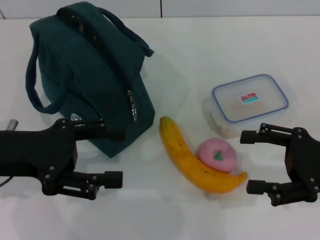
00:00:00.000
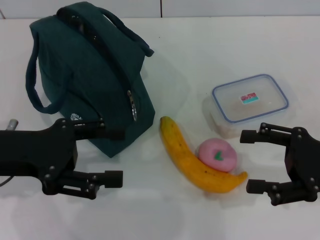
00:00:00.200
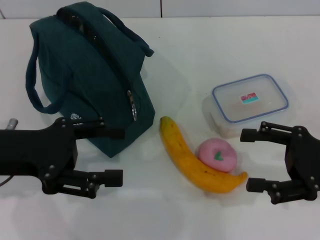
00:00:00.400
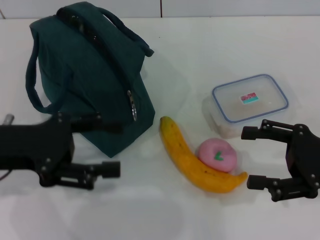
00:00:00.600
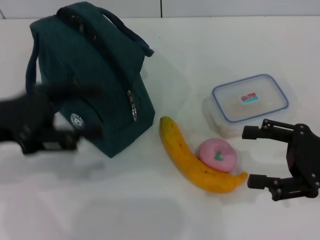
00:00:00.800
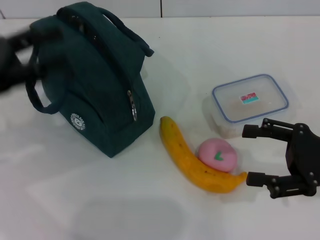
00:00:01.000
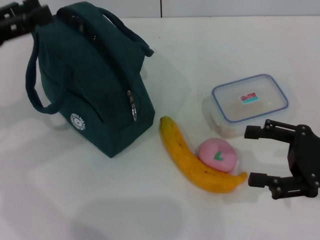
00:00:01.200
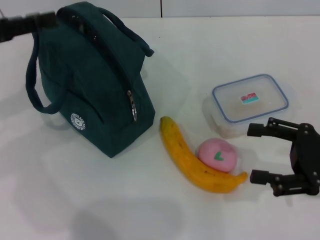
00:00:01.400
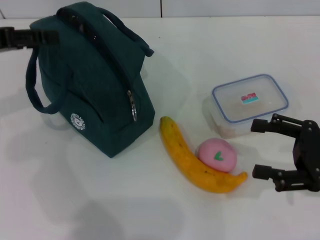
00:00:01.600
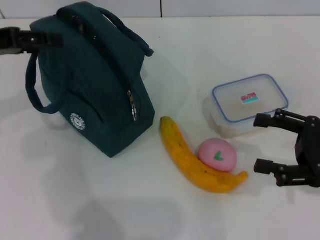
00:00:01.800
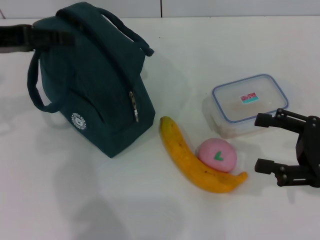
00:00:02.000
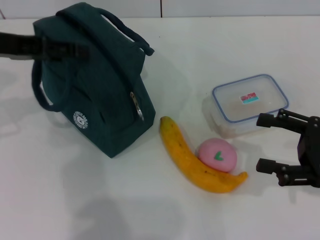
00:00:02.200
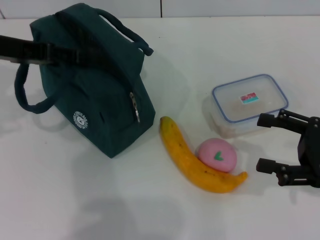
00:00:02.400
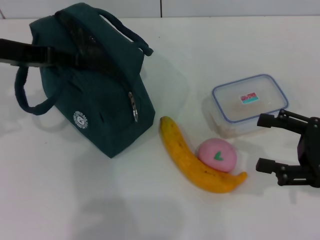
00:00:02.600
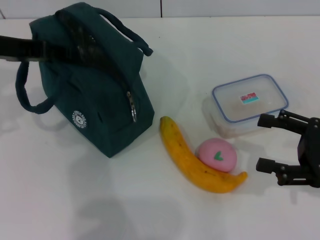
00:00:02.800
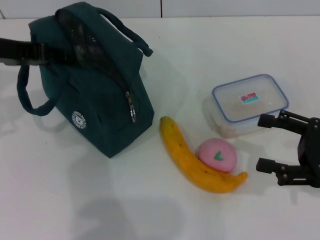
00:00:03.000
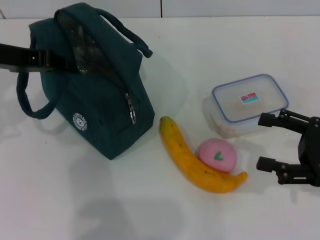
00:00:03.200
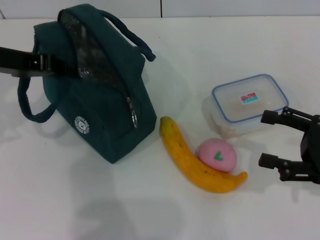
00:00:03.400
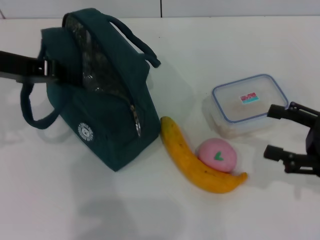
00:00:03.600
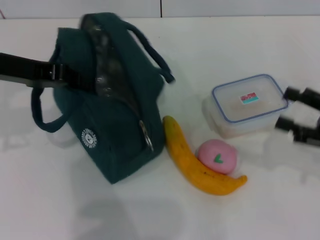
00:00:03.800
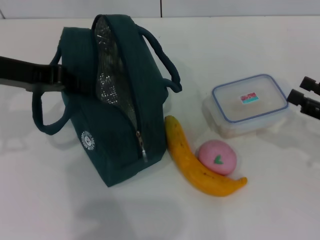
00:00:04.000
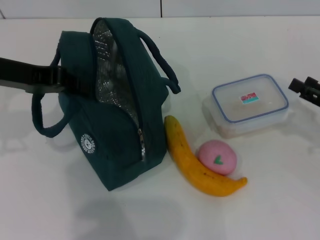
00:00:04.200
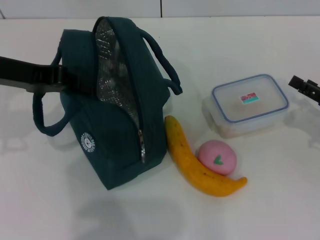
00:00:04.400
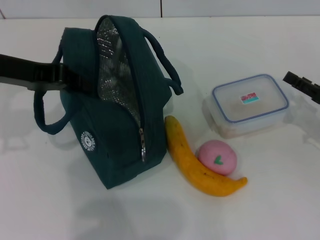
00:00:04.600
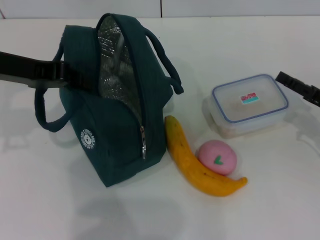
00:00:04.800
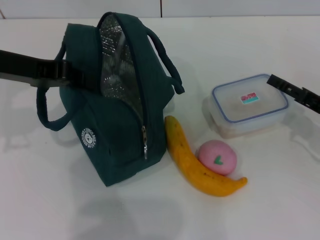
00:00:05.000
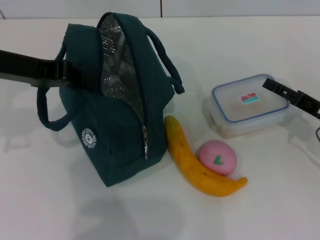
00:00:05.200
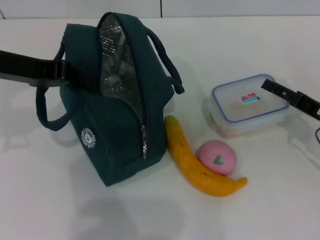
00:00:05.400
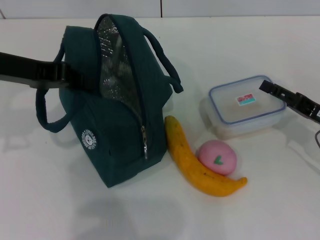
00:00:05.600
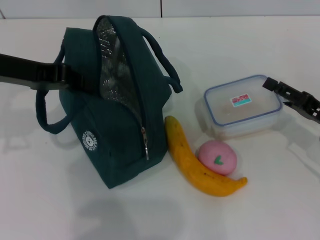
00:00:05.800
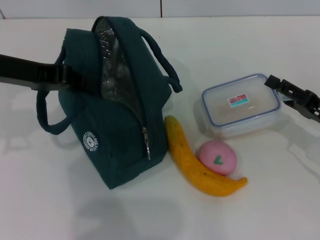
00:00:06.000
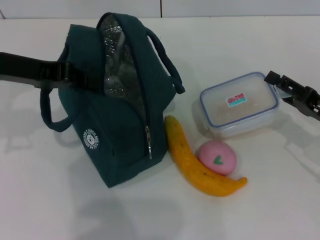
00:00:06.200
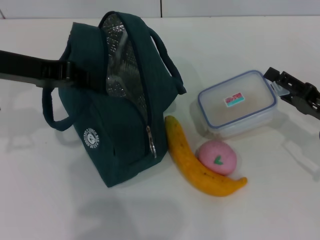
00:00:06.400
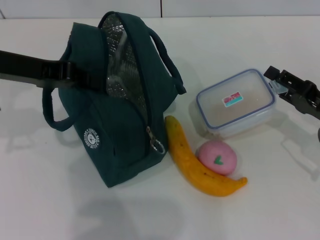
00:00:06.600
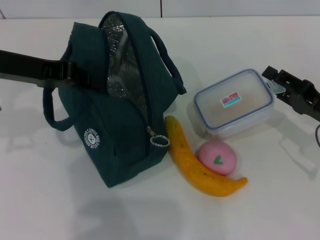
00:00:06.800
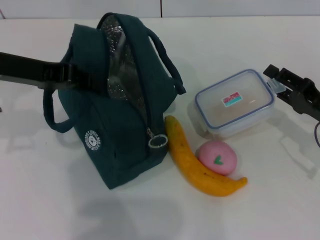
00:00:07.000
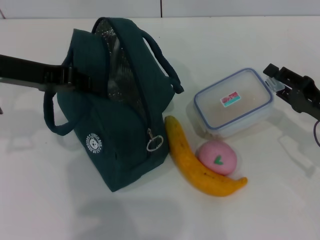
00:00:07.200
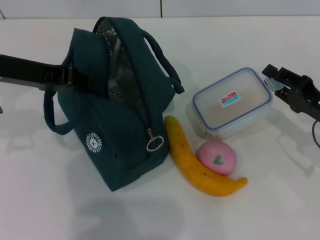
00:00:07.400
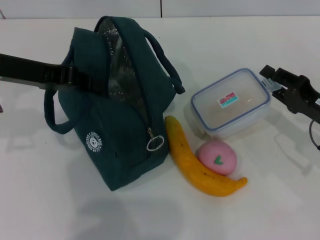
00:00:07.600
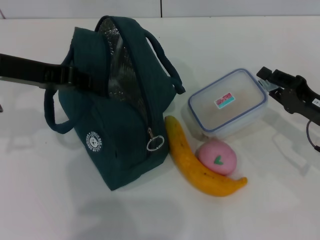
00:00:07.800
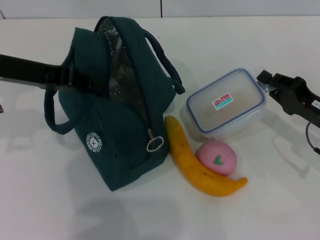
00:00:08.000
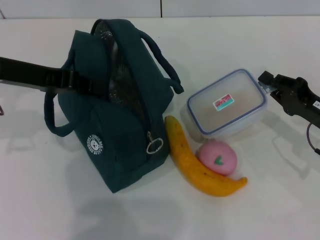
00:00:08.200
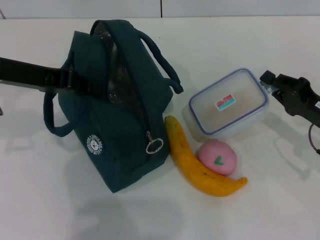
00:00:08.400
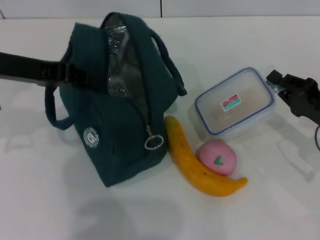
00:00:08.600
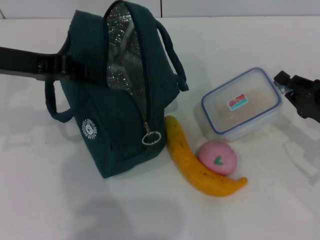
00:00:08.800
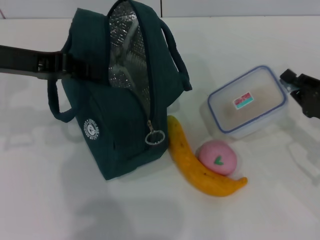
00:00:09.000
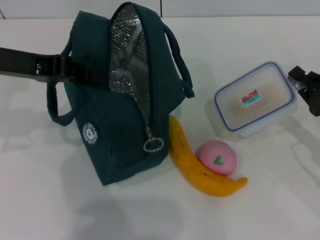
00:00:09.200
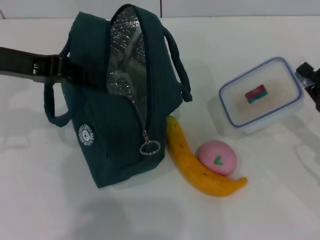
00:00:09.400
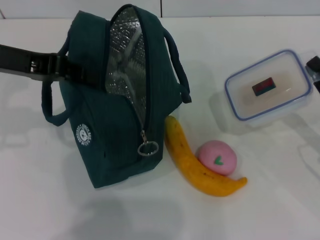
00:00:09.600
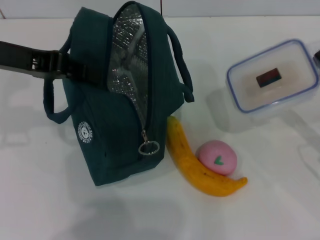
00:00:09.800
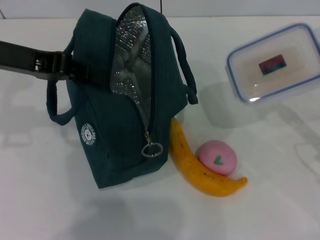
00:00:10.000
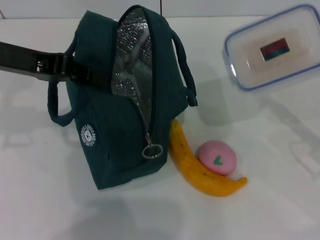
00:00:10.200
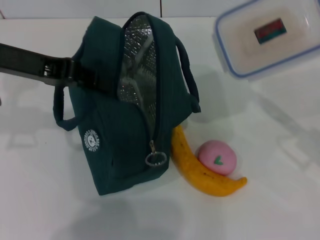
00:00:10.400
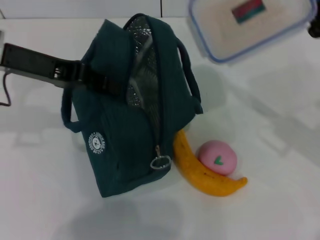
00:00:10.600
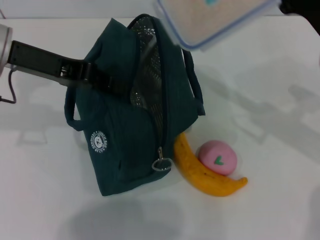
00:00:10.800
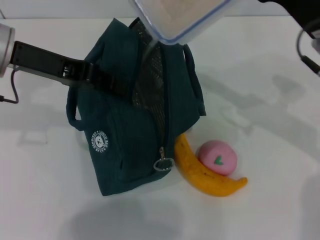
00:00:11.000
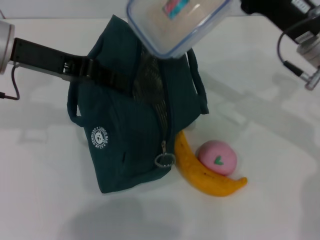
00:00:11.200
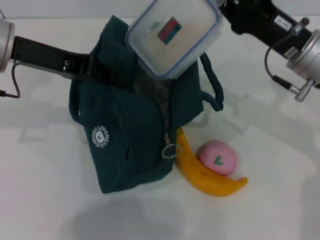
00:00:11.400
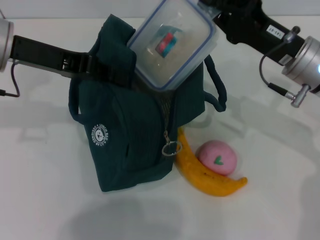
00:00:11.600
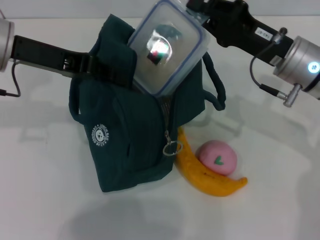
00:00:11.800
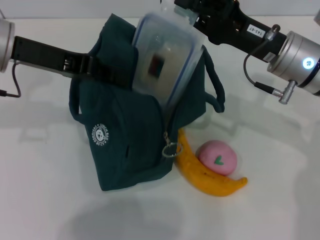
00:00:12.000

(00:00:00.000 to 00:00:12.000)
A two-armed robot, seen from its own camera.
Step, 00:00:00.000 - 00:00:03.800: Hold the lunch bag with your left hand.
Step, 00:00:04.000 - 00:00:08.200: Pick up the lunch box with your right hand.
00:00:00.000 - 00:00:01.600: The left gripper goes some 10 cm forward, upward and to the left.
00:00:01.600 - 00:00:03.000: There are only small adjustments of the grippers.
00:00:03.000 - 00:00:04.400: The left gripper closes its fingers, while the right gripper shifts by some 5 cm.
00:00:04.400 - 00:00:06.000: The grippers stay close to where they were, moving slightly.
00:00:06.000 - 00:00:07.600: The right gripper closes.
00:00:07.600 - 00:00:09.000: The right gripper closes.
00:00:09.000 - 00:00:10.400: The right gripper is displaced upward by roughly 5 cm.
00:00:10.400 - 00:00:12.000: The right gripper is displaced to the left and forward by about 15 cm.

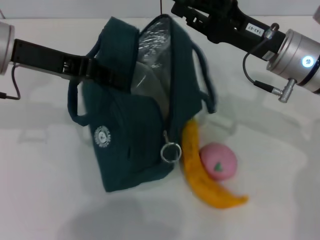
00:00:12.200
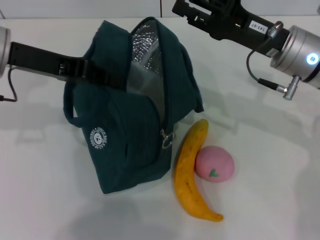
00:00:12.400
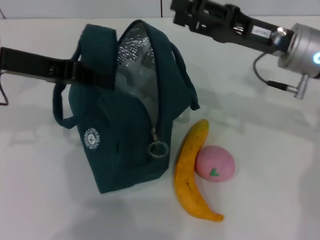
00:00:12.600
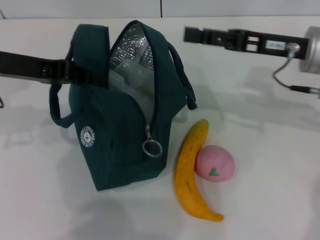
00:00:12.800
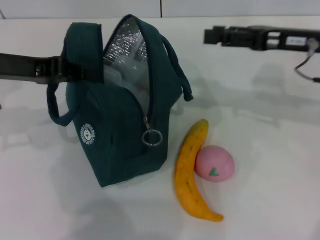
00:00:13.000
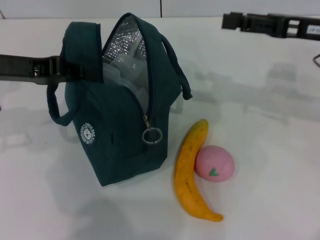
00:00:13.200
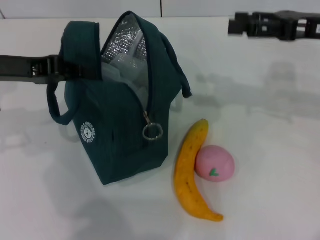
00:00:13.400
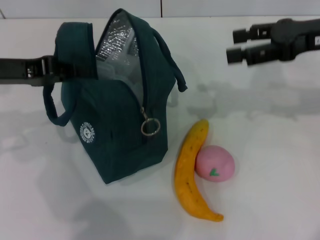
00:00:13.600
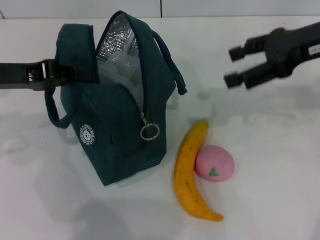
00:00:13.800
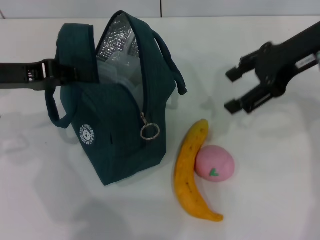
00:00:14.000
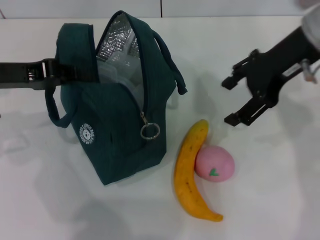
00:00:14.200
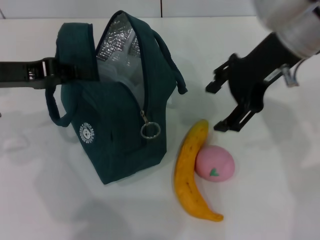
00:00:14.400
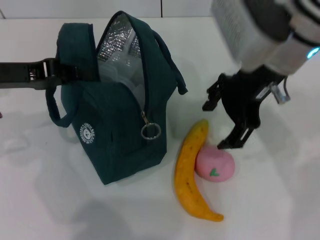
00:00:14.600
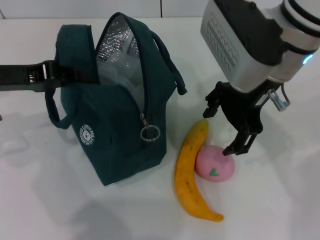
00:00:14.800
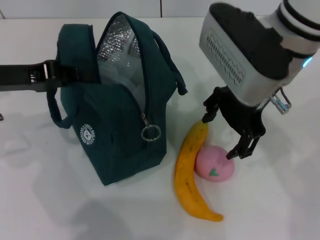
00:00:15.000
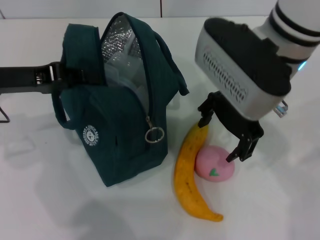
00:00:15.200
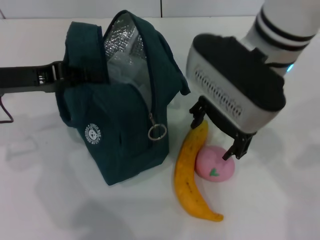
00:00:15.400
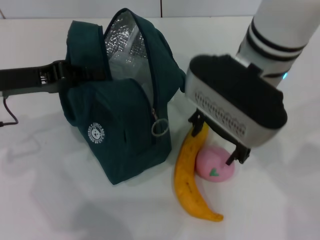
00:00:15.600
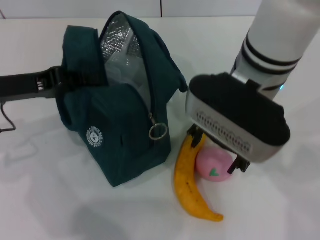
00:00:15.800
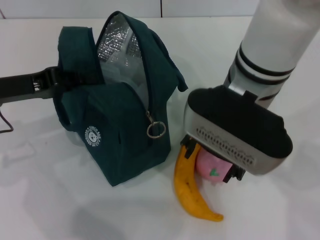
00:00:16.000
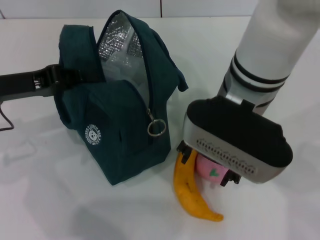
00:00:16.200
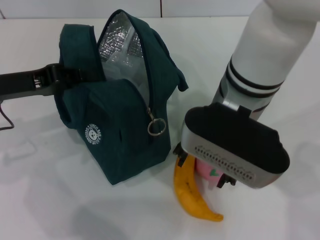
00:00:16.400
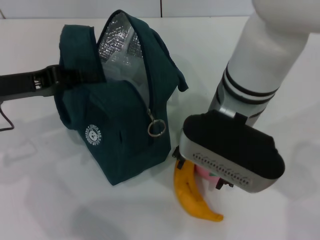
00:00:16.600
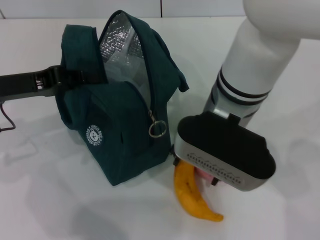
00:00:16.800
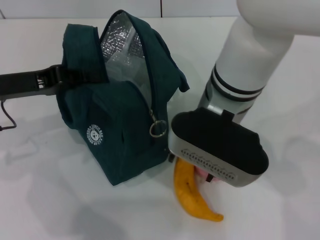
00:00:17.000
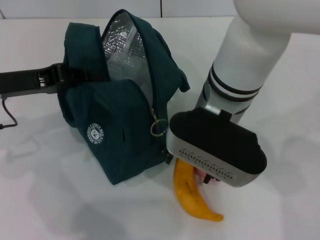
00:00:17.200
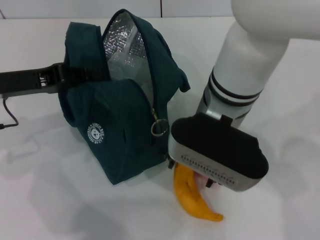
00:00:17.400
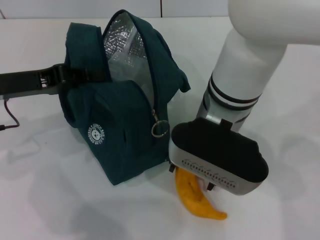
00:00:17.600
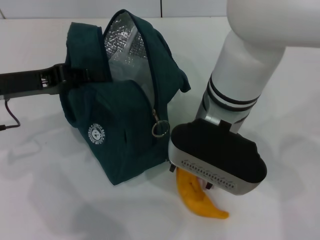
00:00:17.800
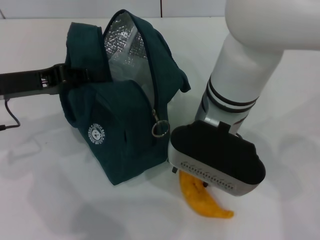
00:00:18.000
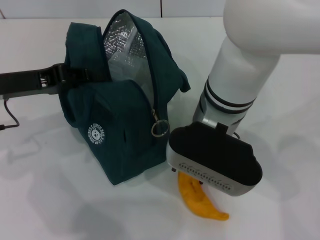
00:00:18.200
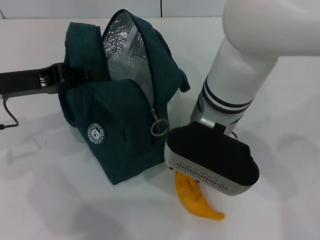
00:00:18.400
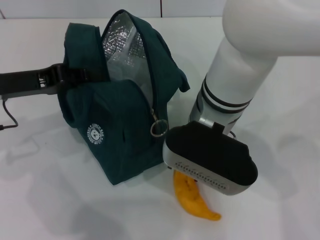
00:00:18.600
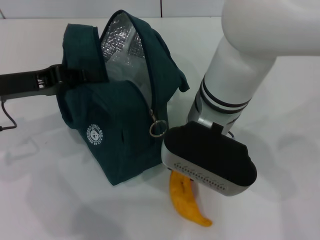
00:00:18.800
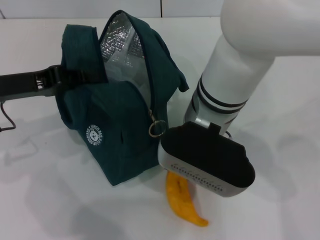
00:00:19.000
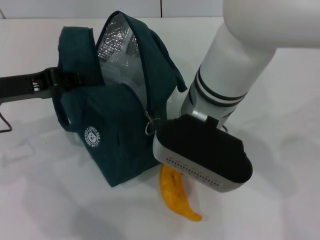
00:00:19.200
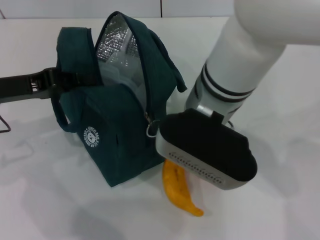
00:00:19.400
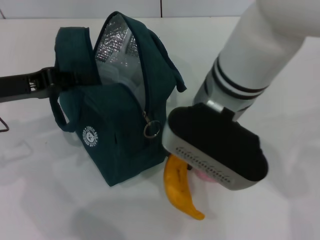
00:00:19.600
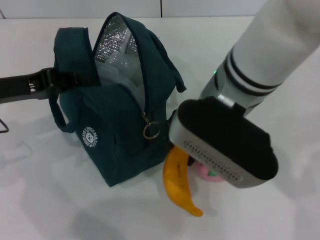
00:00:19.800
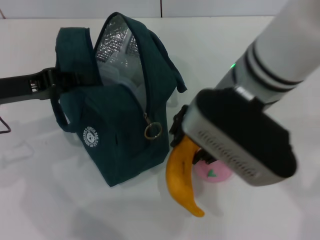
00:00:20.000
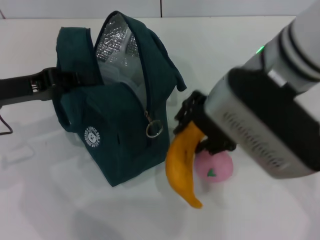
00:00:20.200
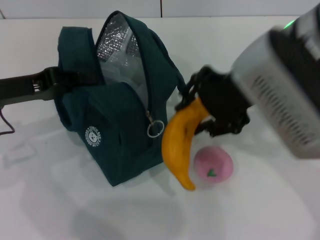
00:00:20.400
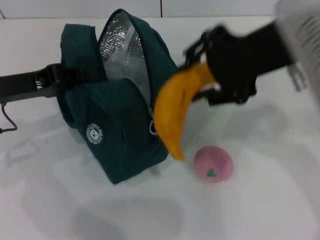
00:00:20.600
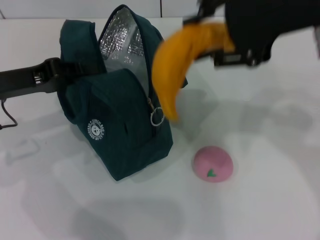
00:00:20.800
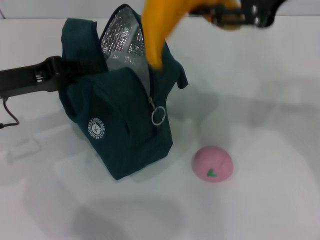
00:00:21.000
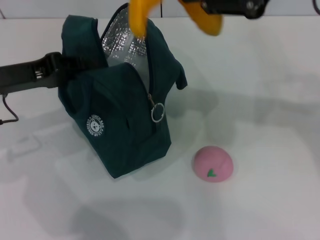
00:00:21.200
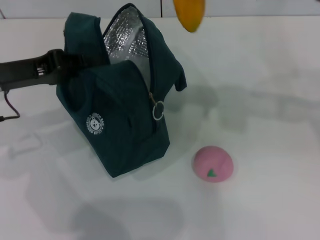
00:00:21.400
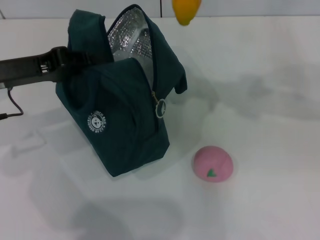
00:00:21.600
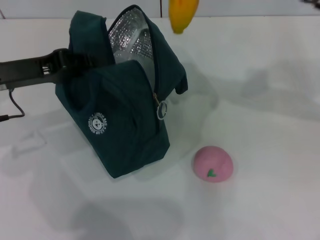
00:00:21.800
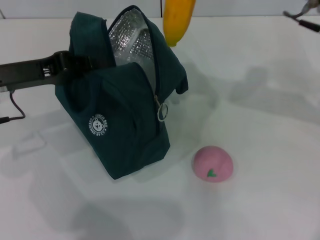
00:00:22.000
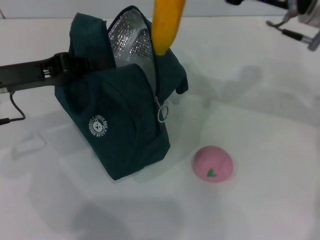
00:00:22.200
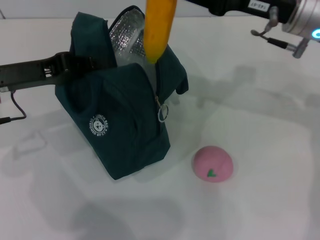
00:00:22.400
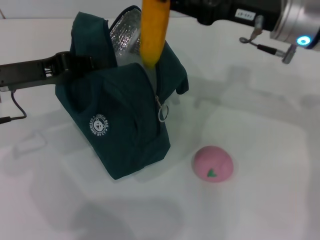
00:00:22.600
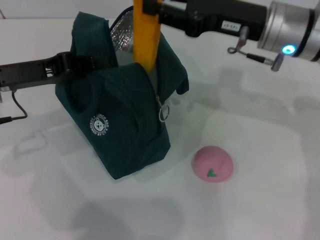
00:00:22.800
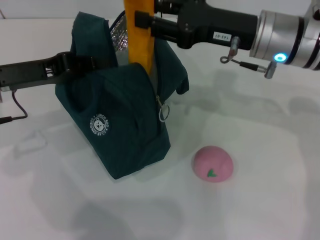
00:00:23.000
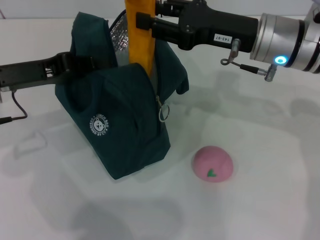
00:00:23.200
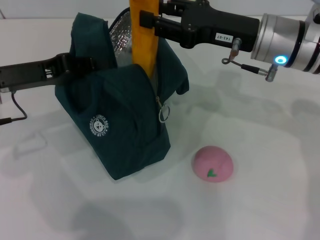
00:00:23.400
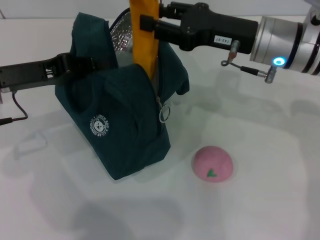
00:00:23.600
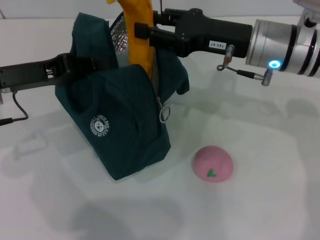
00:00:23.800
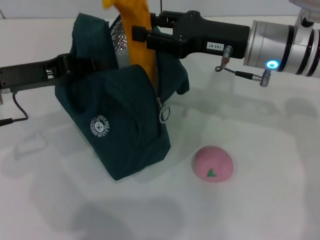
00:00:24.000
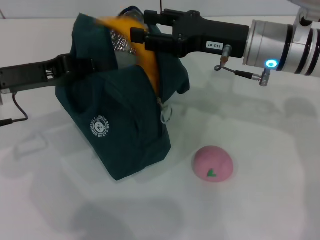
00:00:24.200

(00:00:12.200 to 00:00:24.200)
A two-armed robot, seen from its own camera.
Step, 00:00:12.600 - 00:00:18.400: Take the banana with your right hand.
00:00:12.200 - 00:00:13.800: The right gripper heads upward and to the right, covering some 10 cm, and opens up. Meanwhile the left gripper goes roughly 5 cm to the left.
00:00:13.800 - 00:00:15.200: The right gripper travels to the left by about 15 cm.
00:00:15.200 - 00:00:16.600: The right gripper shifts by approximately 5 cm.
00:00:18.200 - 00:00:19.800: The right gripper moves about 5 cm.
00:00:19.800 - 00:00:21.200: The right gripper moves to the right and upward, some 20 cm.
00:00:21.200 - 00:00:22.600: The right gripper heads downward and forward, covering roughly 15 cm.
00:00:22.600 - 00:00:24.200: The grippers move only a little.
